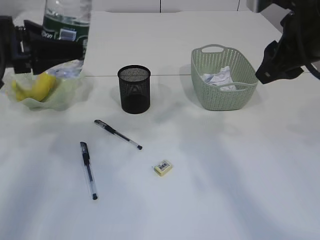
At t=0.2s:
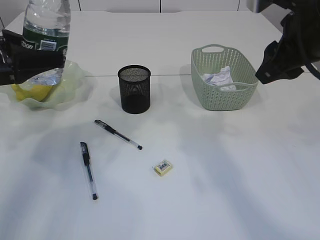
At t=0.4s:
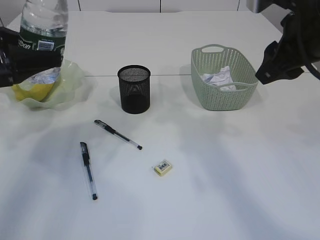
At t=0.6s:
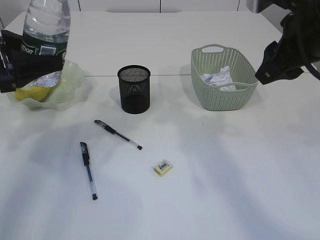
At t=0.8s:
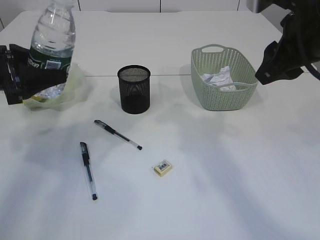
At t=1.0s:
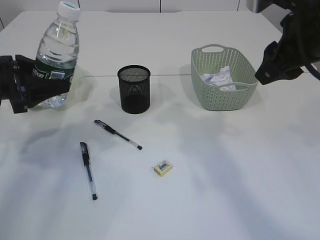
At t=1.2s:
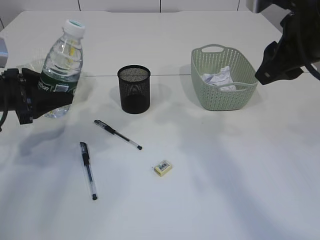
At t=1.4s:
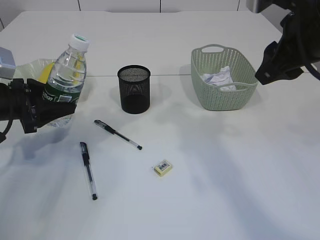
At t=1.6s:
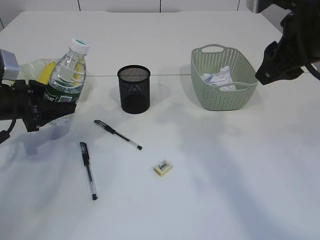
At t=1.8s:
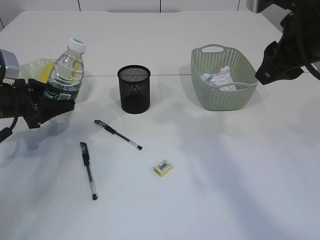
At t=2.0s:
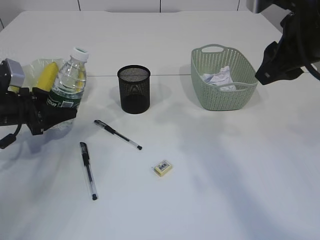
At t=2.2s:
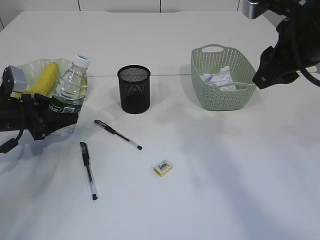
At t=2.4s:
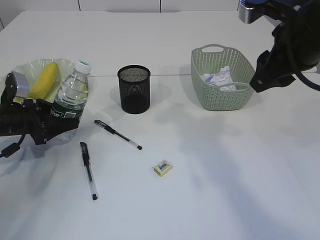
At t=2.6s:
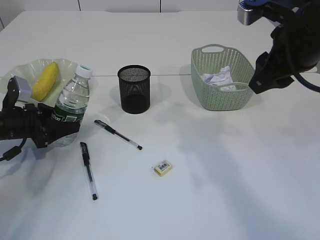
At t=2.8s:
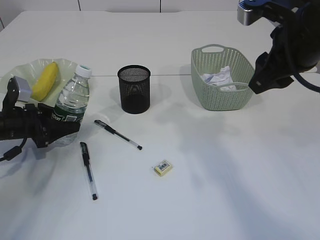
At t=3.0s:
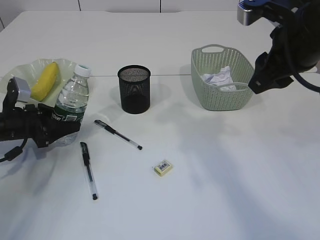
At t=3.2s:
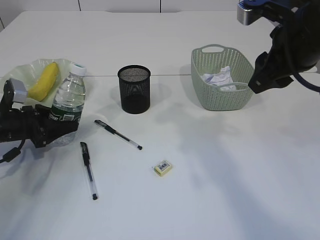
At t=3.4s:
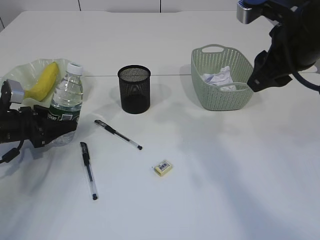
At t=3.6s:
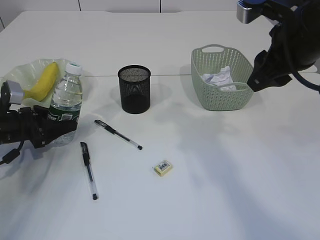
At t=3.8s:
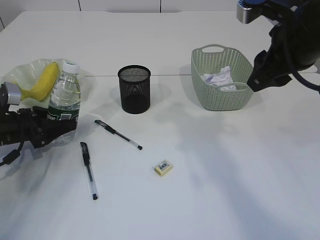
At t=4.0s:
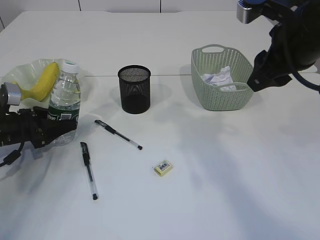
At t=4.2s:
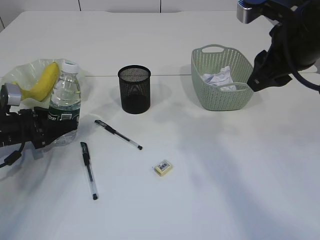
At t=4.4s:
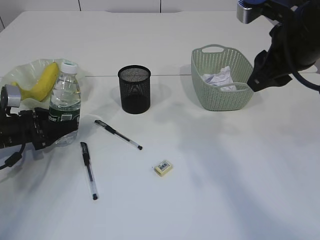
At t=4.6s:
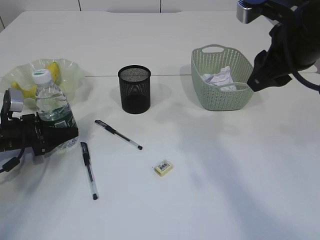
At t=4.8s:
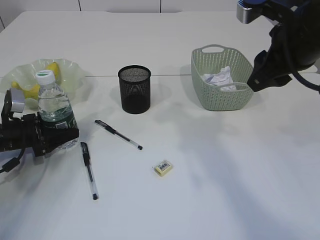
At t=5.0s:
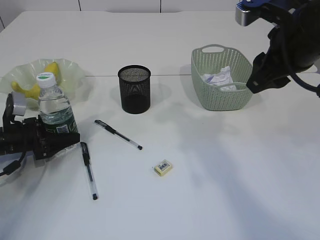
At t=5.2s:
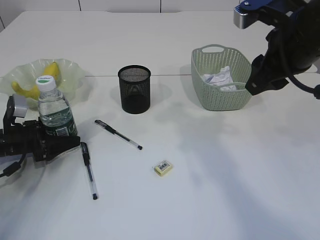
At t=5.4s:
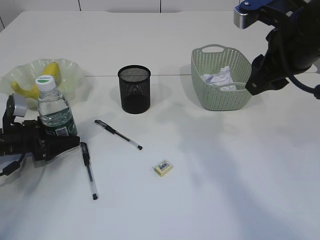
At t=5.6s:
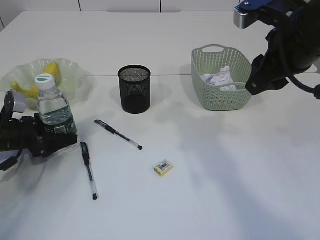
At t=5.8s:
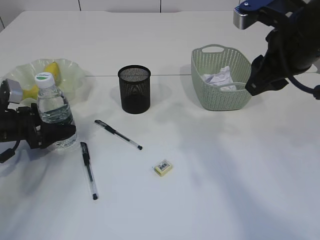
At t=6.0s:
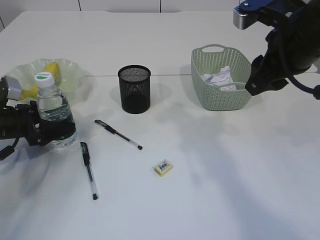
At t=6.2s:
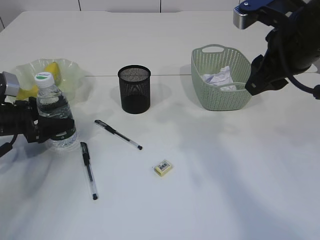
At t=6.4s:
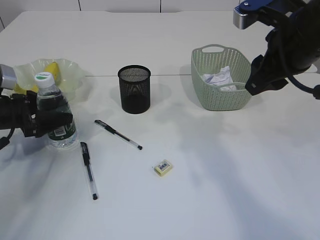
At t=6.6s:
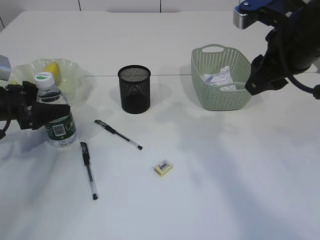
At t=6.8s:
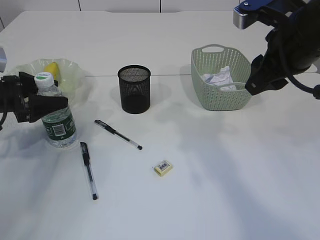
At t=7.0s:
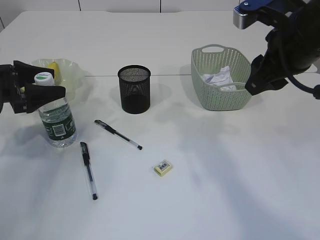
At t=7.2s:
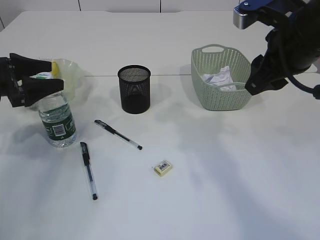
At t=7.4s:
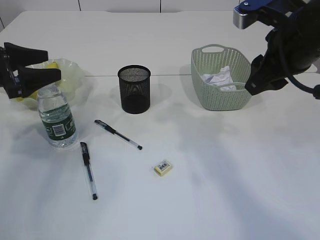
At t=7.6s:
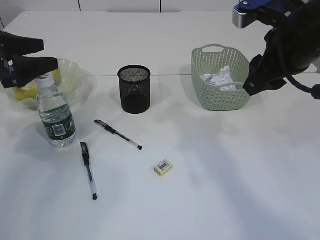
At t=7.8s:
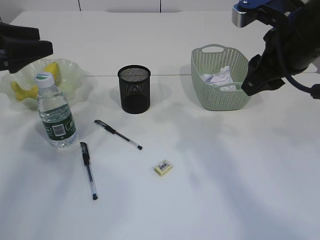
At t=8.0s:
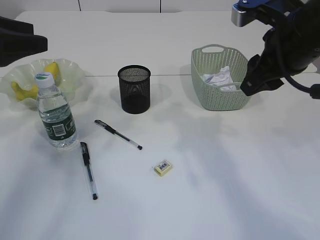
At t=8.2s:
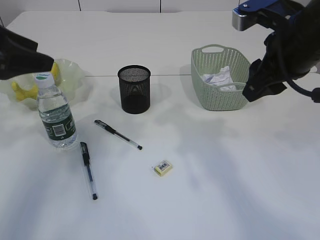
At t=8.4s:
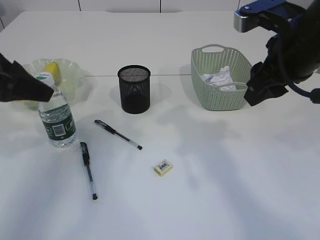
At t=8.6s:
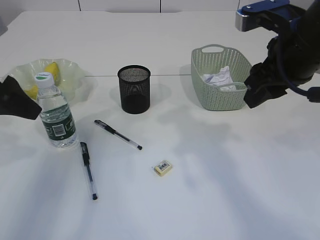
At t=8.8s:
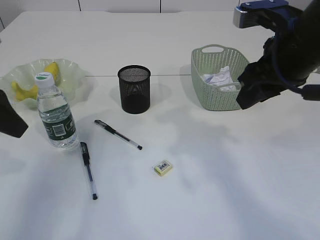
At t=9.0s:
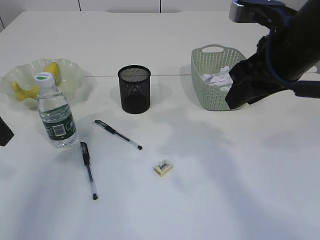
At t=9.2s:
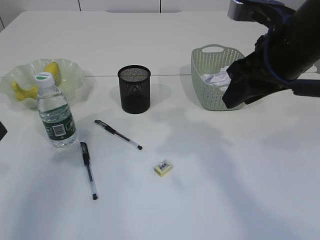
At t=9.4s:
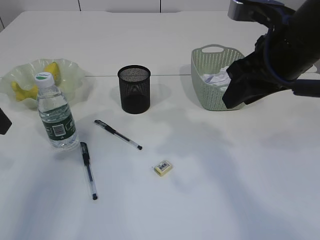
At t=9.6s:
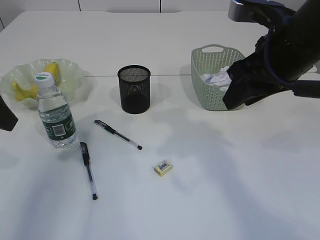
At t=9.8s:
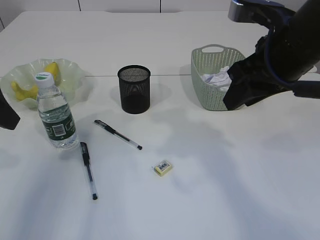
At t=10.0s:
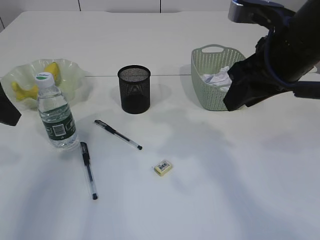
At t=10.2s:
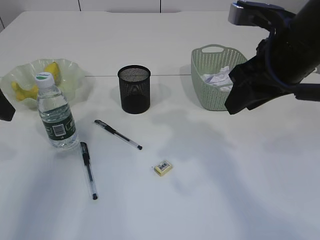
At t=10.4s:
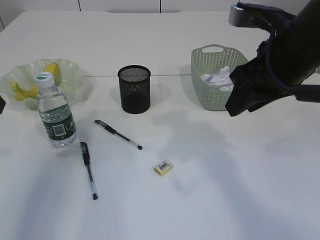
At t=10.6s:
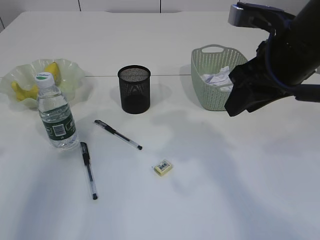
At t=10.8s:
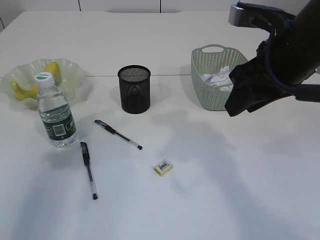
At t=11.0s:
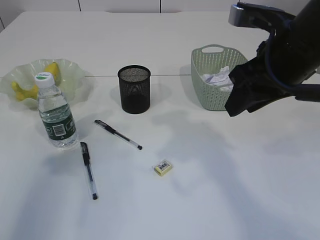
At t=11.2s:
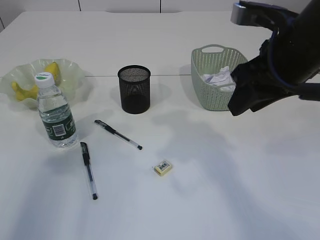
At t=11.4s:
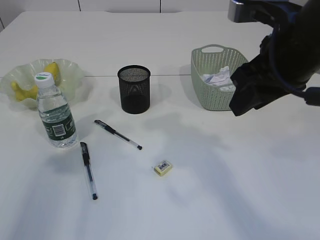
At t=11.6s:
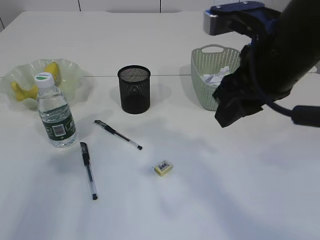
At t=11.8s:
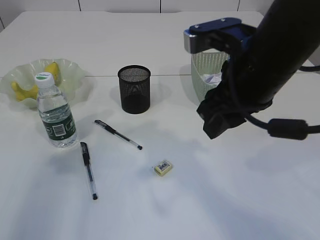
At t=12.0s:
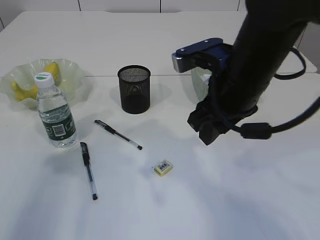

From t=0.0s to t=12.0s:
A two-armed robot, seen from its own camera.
Step, from t=0.0s to t=7.2s: Place the bottle.
From t=0.0s to t=1.6s: The left gripper moves downward, roughly 15 cm.
From t=1.6s to t=3.0s: The left gripper shifts some 5 cm downward.
From t=3.0s to t=6.0s: There are only small adjustments of the grippers.
From t=6.0s to t=7.6s: The left gripper goes about 15 cm upward.
From t=7.6s to t=9.0s: The left gripper moves backward and upward, about 15 cm.
From t=10.4s to t=12.0s: The left gripper shifts approximately 5 cm backward; the right gripper is displaced to the left by approximately 5 cm.

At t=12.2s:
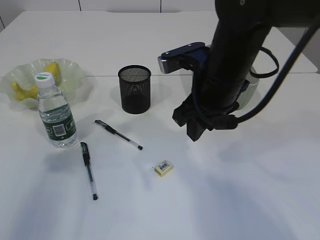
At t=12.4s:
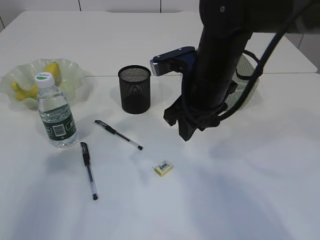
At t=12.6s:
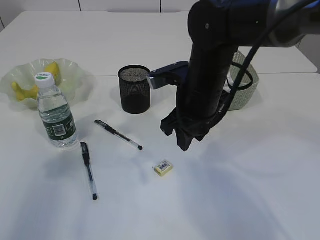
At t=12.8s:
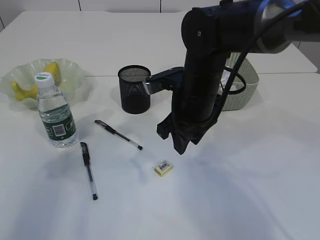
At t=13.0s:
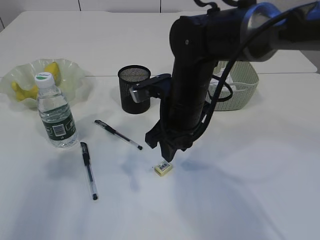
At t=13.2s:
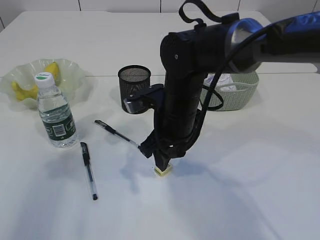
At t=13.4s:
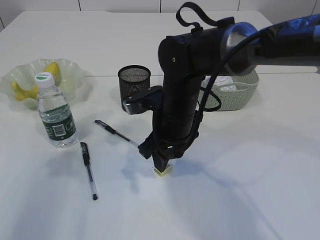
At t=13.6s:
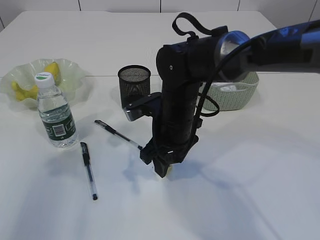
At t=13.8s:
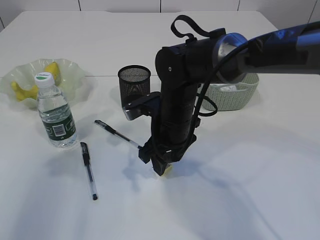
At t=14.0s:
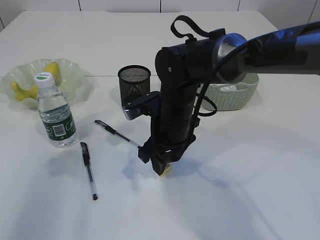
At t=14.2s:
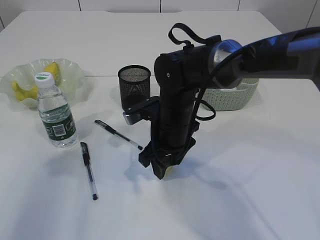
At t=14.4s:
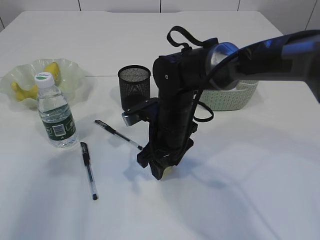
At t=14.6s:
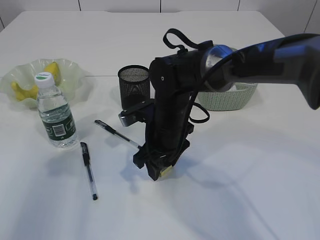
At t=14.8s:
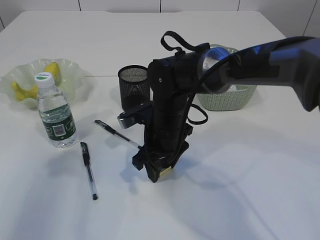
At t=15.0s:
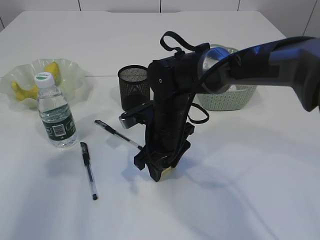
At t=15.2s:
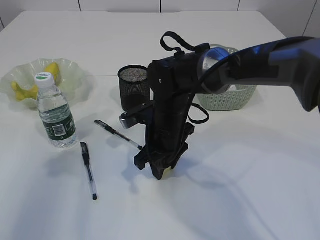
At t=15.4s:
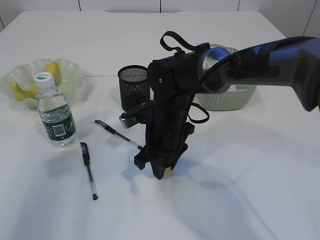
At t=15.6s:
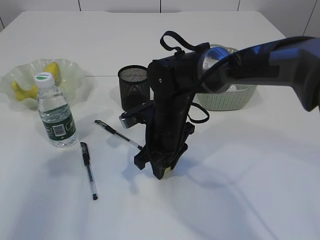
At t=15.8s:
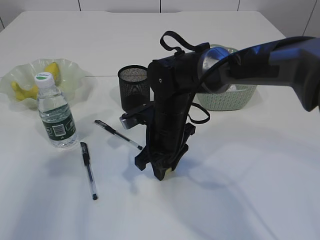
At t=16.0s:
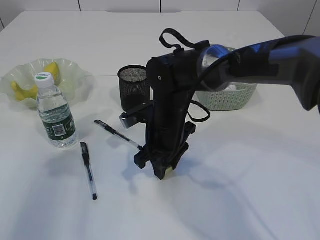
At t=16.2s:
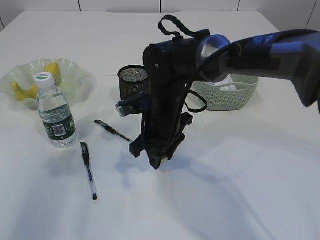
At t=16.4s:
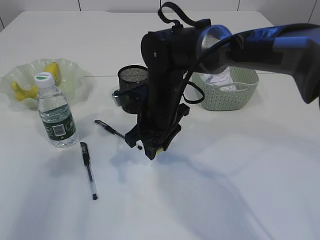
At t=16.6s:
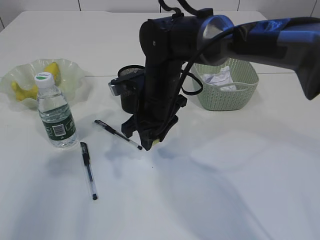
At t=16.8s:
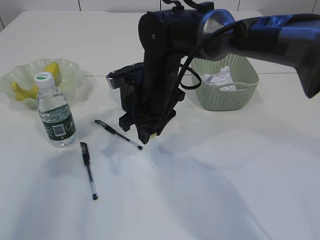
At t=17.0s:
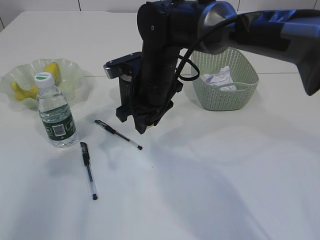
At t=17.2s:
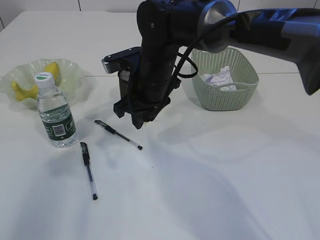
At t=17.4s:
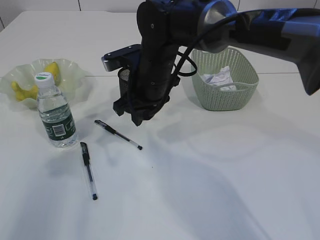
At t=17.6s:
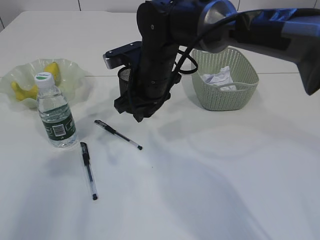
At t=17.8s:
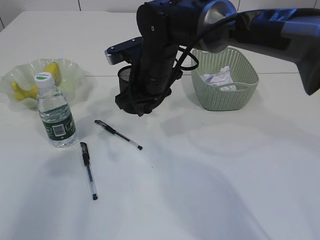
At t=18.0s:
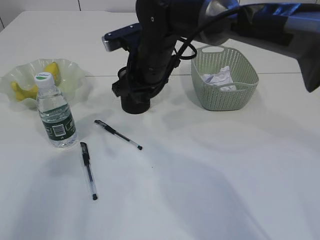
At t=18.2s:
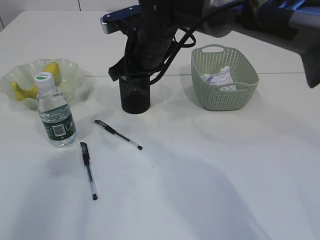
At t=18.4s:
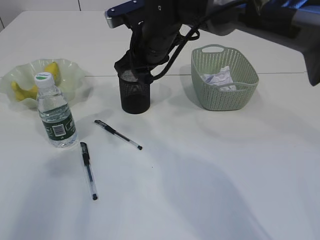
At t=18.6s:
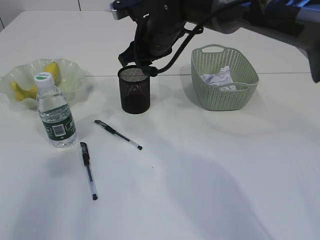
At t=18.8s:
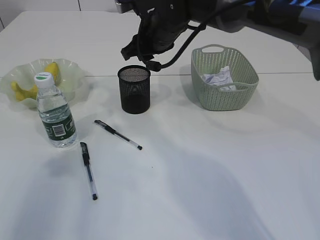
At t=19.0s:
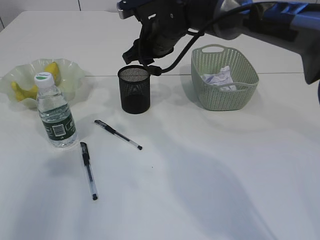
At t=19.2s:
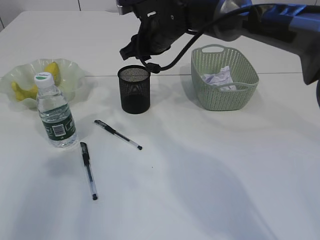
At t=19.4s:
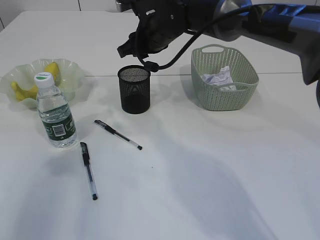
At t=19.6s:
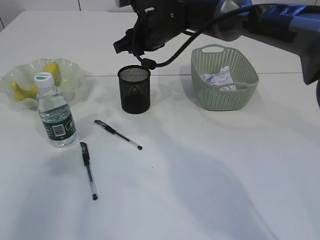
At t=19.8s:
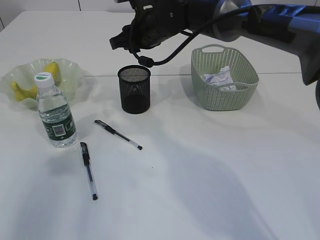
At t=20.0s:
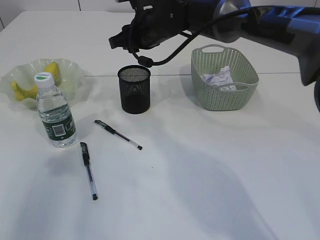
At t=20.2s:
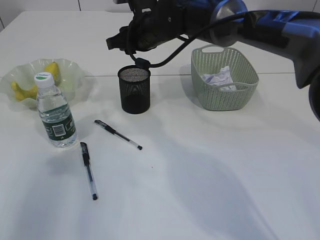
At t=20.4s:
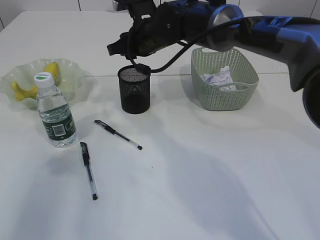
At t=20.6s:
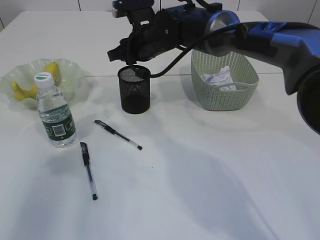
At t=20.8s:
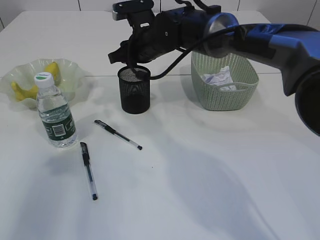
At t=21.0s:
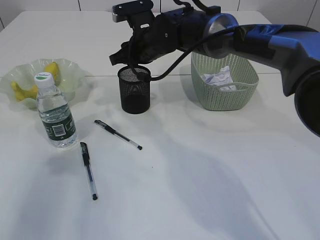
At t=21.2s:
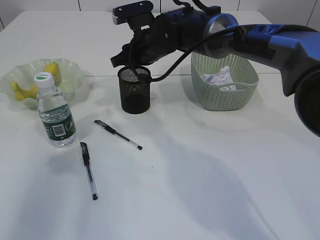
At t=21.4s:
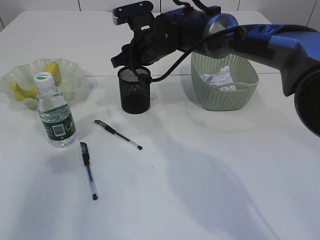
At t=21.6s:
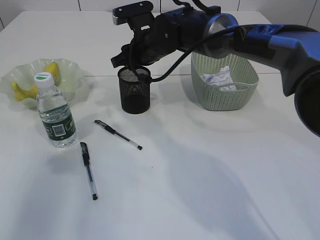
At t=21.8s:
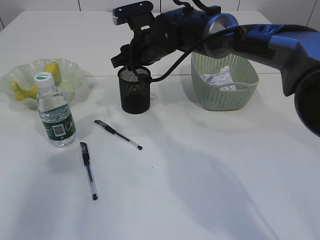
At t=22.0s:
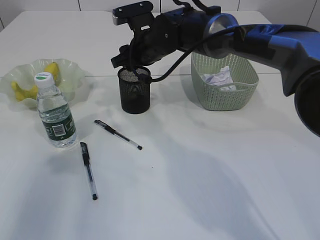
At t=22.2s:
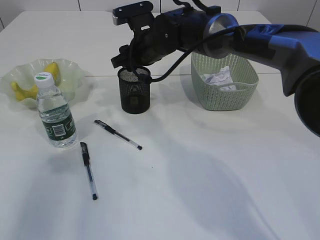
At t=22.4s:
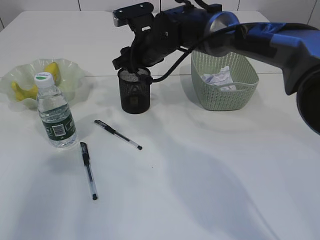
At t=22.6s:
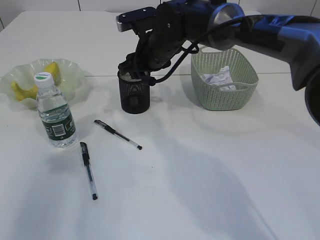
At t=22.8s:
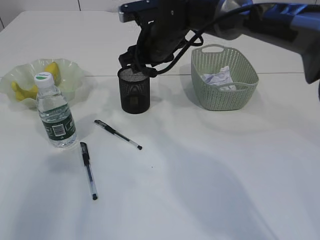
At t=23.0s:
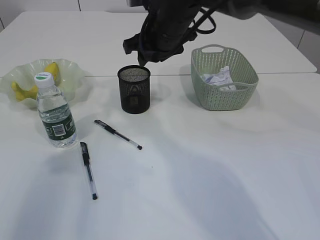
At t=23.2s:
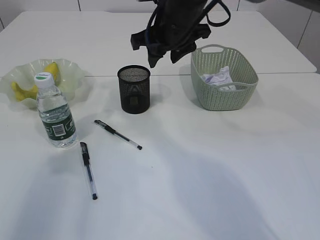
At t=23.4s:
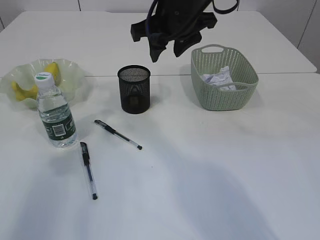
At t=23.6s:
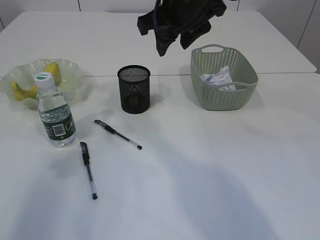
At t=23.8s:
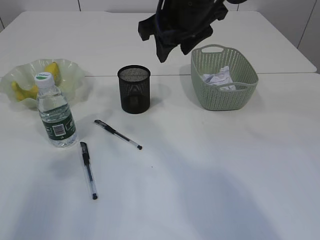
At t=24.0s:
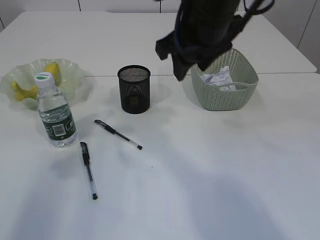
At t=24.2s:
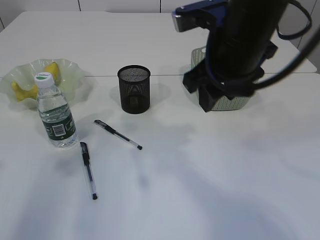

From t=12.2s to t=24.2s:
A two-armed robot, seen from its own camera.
Step, from t=12.2s to t=16.4s: Pick up the eraser.
Step, from t=16.6s to t=23.0s: Place the eraser into the pen holder.
From t=12.2s to t=13.8s: The right gripper is displaced downward and to the left by approximately 10 cm.
From t=13.8s to t=15.2s: There are only small adjustments of the grippers.
From t=15.2s to t=16.6s: The right gripper heads upward, covering some 5 cm.
From t=16.6s to t=18.2s: The right gripper goes approximately 5 cm upward.
From t=18.2s to t=19.8s: The right gripper ends up about 5 cm from where it was.
From t=19.8s to t=22.6s: There are only small adjustments of the grippers.
From t=22.6s to t=24.2s: The right gripper goes some 20 cm backward, upward and to the right.
